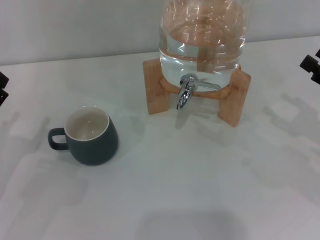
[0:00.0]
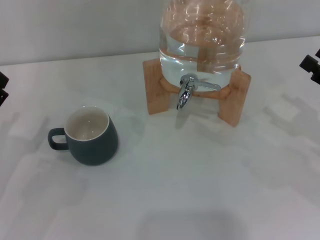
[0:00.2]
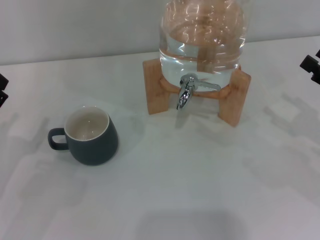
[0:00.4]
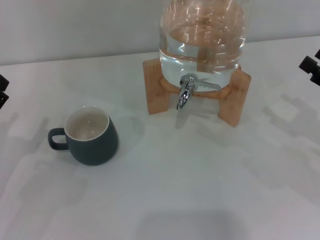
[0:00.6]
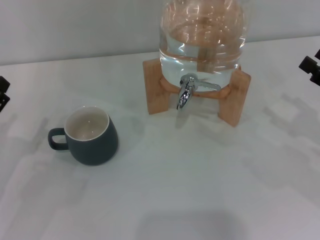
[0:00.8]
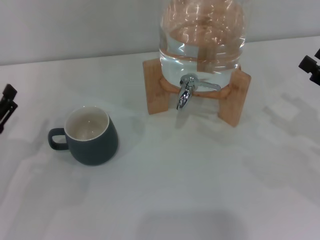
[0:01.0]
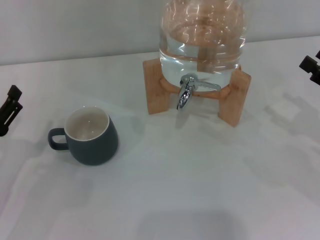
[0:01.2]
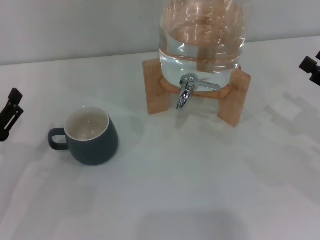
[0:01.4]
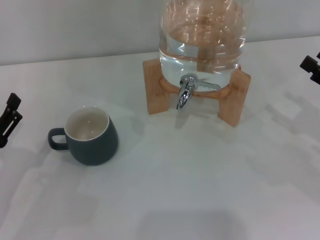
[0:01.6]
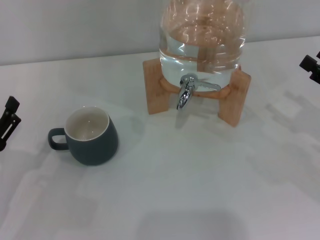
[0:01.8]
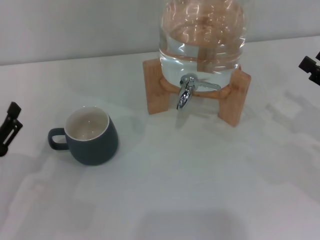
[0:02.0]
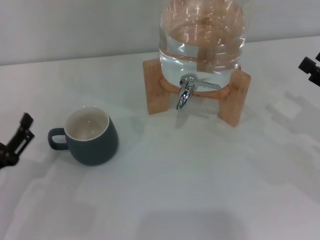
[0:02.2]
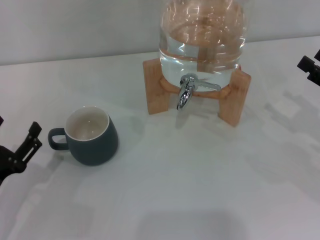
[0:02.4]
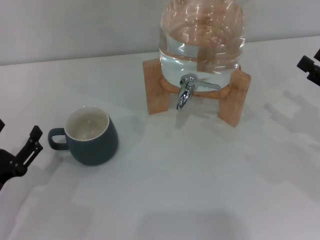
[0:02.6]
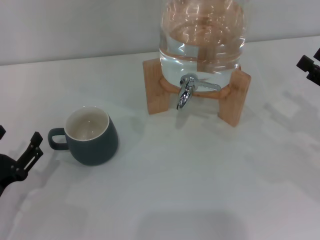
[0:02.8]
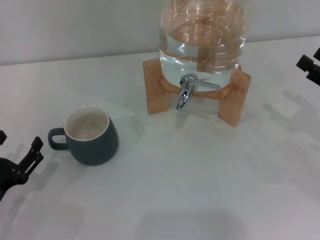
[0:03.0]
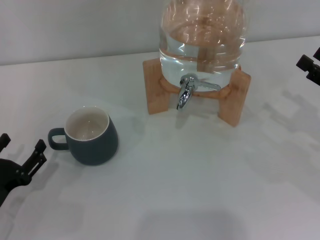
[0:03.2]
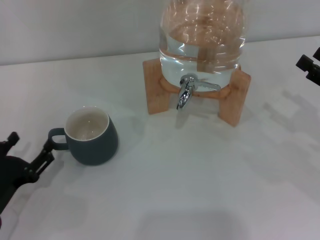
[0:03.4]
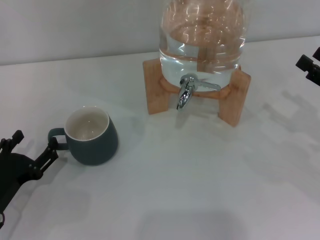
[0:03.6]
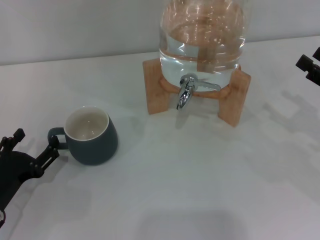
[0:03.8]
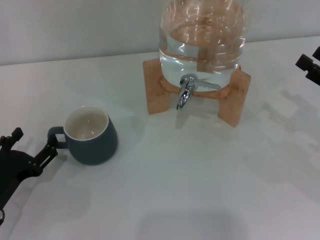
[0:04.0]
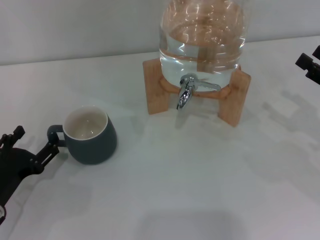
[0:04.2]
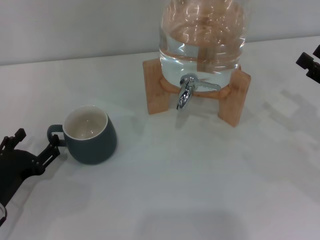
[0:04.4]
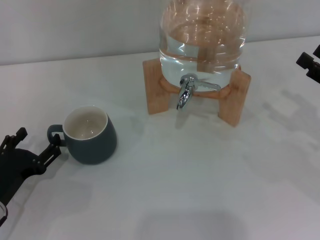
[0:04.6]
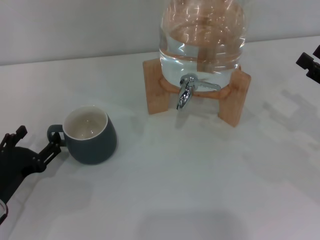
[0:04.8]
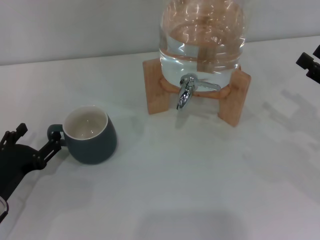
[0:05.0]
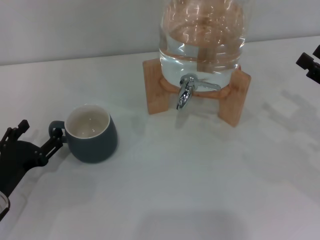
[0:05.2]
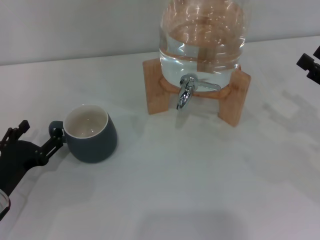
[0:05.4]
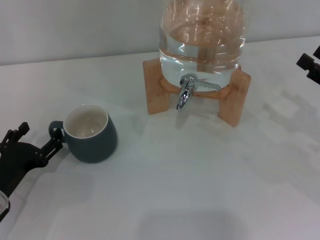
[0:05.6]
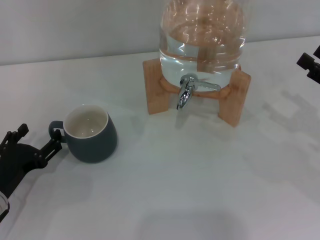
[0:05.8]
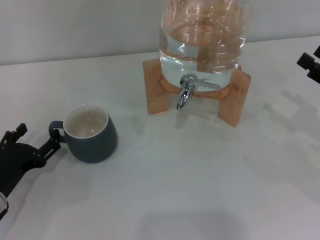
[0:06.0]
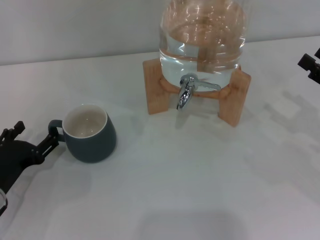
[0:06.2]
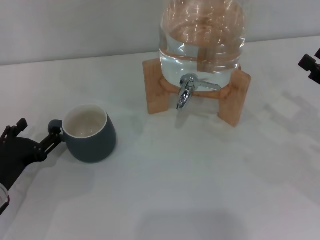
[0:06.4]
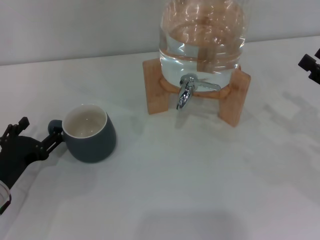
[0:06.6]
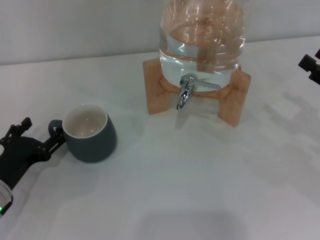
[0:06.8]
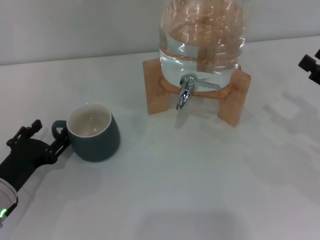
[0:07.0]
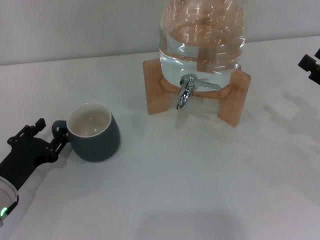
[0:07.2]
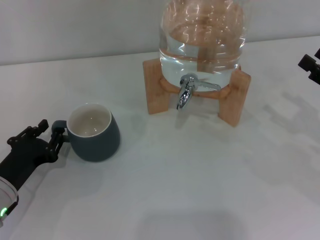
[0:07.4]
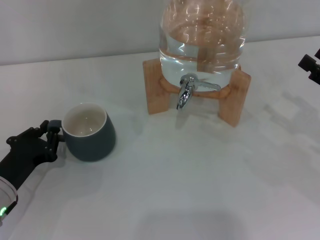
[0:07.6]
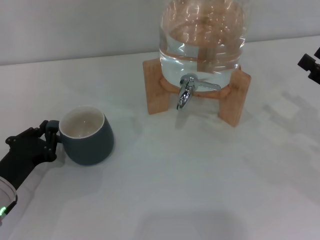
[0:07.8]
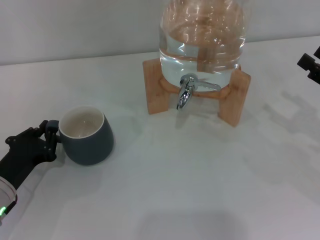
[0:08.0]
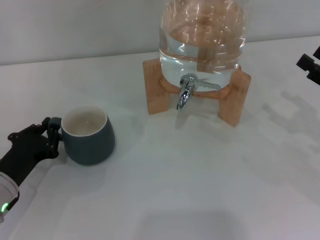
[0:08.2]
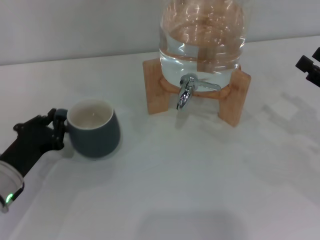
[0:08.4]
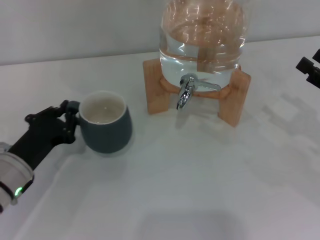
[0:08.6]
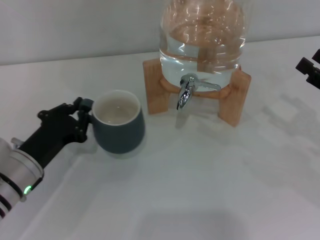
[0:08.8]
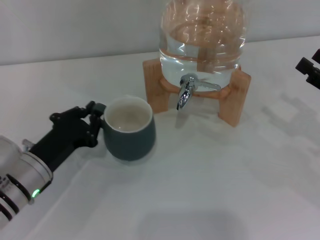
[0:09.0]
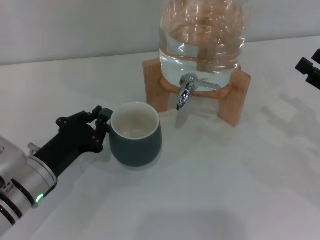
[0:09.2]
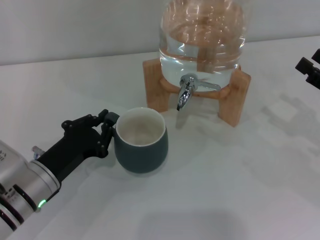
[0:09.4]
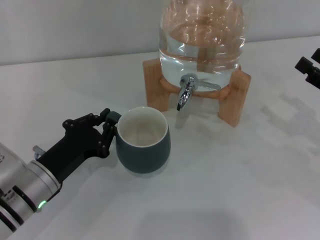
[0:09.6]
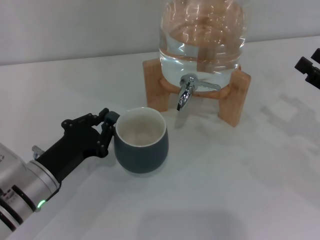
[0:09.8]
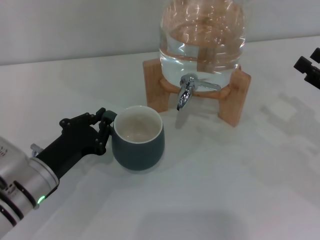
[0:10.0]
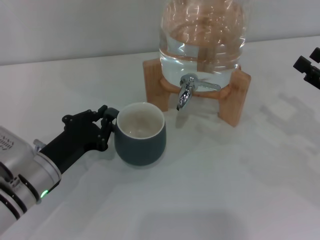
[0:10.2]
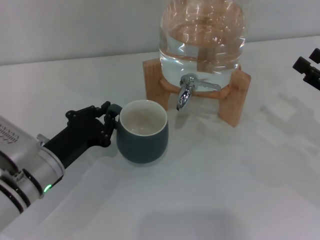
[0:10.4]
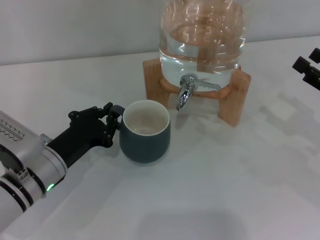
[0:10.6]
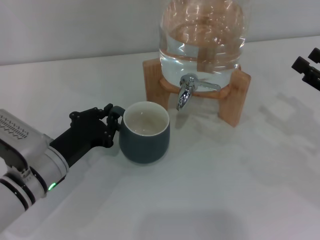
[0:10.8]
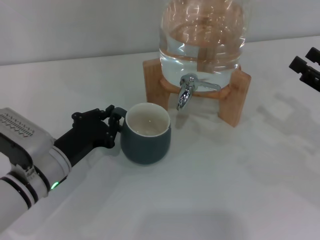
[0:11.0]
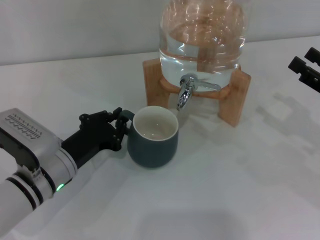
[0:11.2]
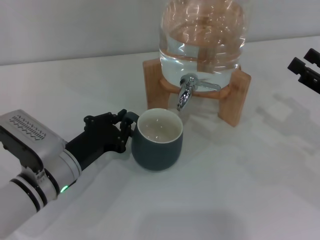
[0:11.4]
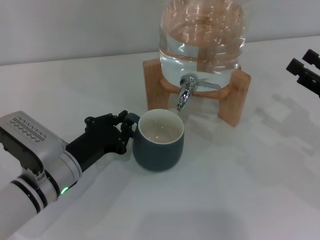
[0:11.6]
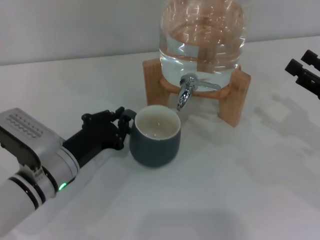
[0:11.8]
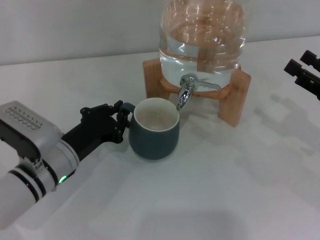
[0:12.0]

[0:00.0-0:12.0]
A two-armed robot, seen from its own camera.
Task of the whole recording: the left gripper pick up the black cup and place it horizontally under the faucet, the right gripper turn on the faucet to fill the cup, and then turn off the faucet.
0:00.0 to 0:01.6: There are only small adjustments of the grippers.
0:01.6 to 0:03.0: The grippers stay close to where they were, moving slightly.
0:03.0 to 0:06.0: There are only small adjustments of the grippers.
0:06.0 to 0:07.6: The left gripper closes.
0:07.6 to 0:09.0: The left gripper shifts approximately 5 cm to the right.
0:09.0 to 0:12.0: The grippers move only a little.

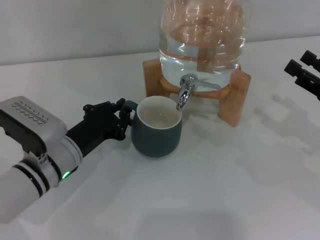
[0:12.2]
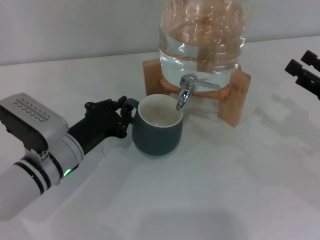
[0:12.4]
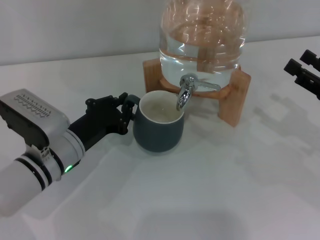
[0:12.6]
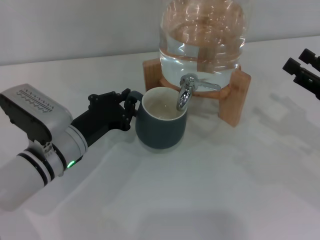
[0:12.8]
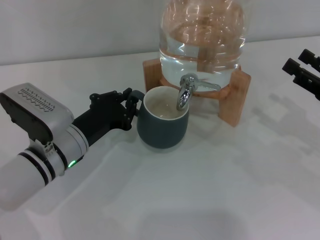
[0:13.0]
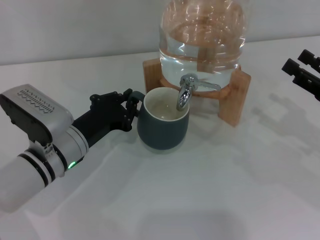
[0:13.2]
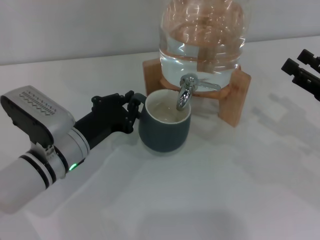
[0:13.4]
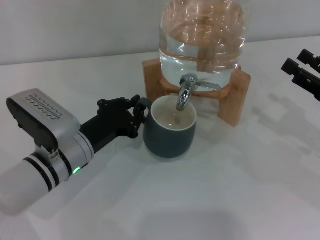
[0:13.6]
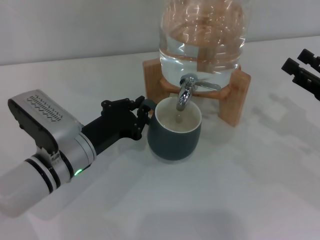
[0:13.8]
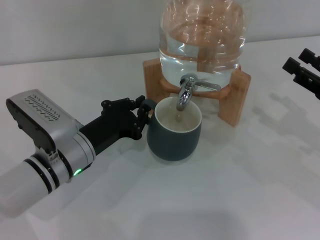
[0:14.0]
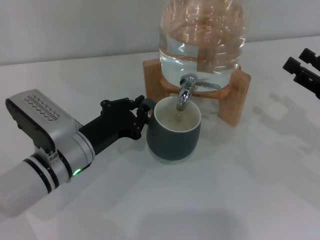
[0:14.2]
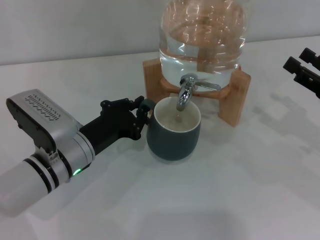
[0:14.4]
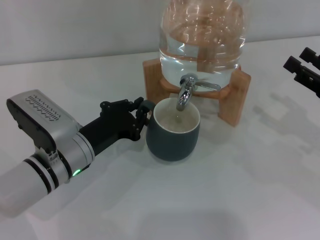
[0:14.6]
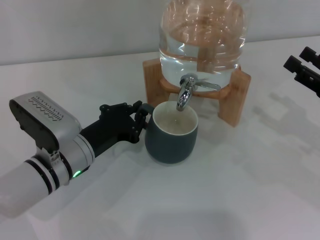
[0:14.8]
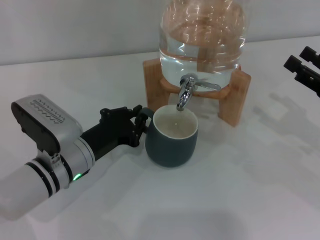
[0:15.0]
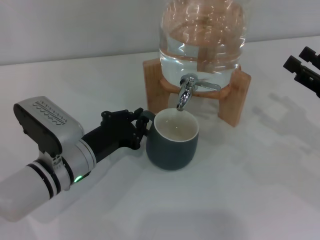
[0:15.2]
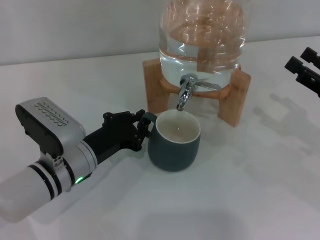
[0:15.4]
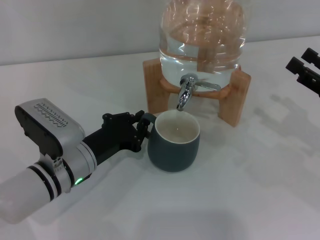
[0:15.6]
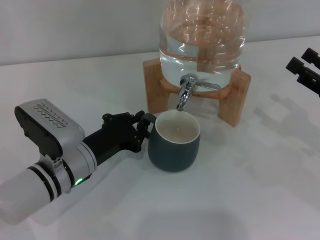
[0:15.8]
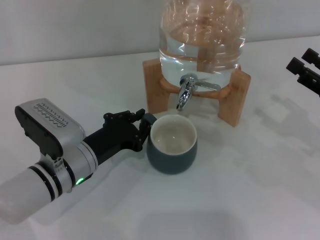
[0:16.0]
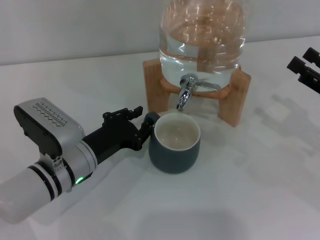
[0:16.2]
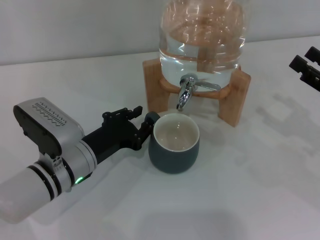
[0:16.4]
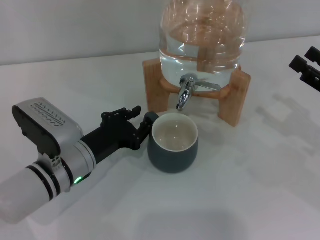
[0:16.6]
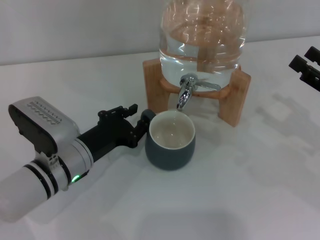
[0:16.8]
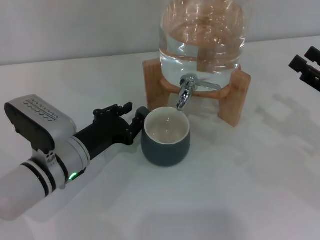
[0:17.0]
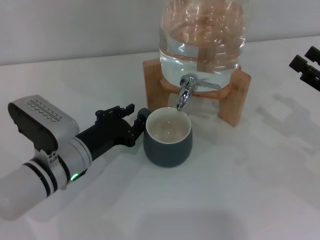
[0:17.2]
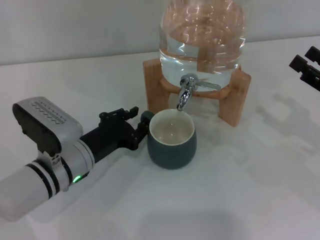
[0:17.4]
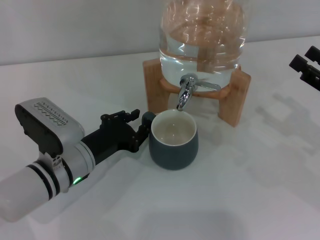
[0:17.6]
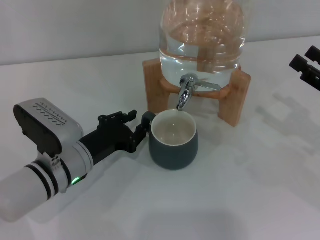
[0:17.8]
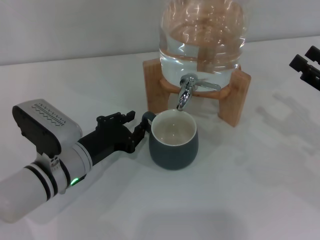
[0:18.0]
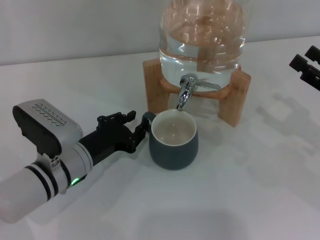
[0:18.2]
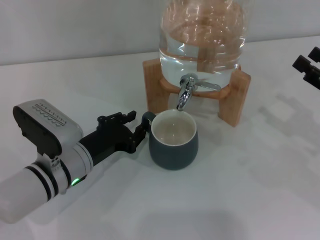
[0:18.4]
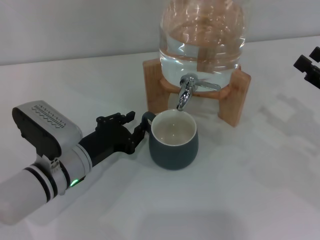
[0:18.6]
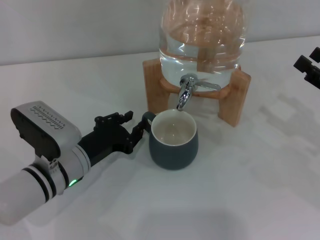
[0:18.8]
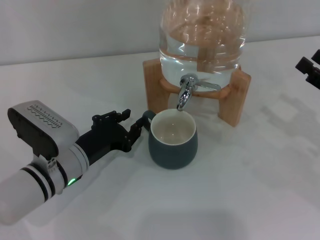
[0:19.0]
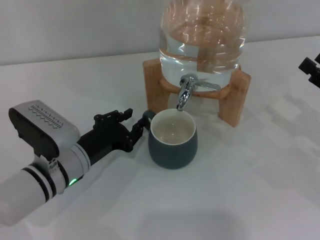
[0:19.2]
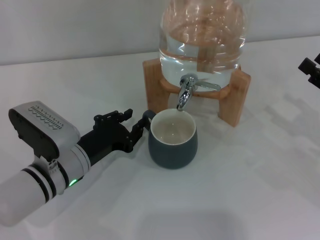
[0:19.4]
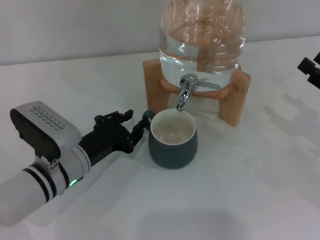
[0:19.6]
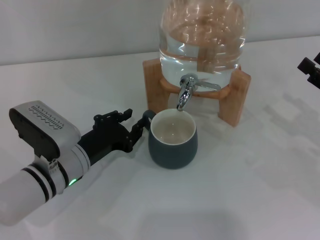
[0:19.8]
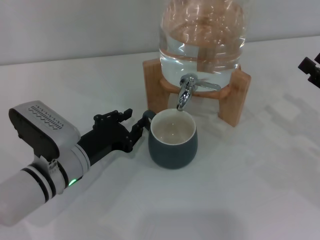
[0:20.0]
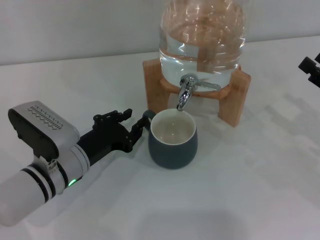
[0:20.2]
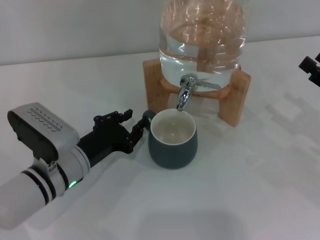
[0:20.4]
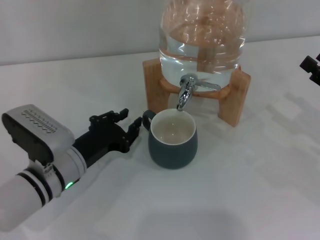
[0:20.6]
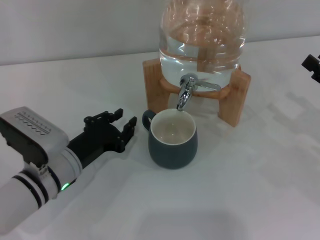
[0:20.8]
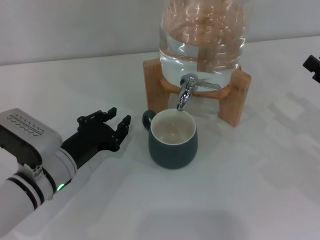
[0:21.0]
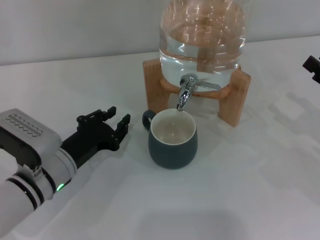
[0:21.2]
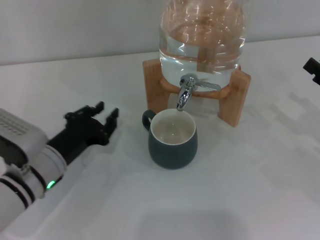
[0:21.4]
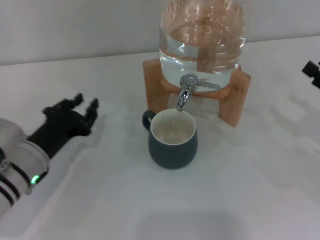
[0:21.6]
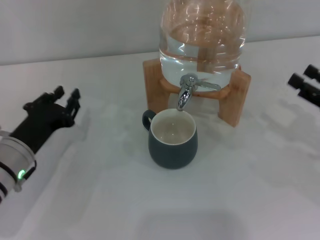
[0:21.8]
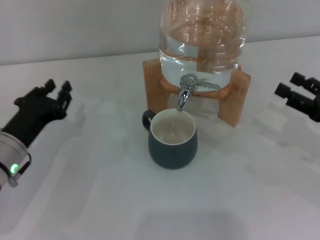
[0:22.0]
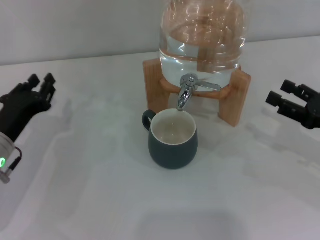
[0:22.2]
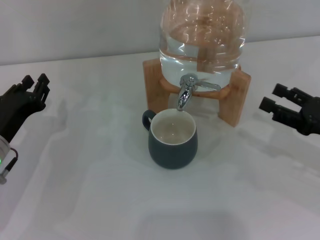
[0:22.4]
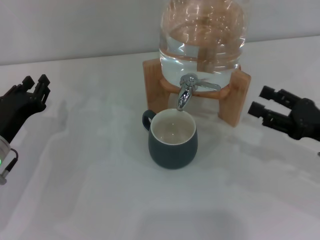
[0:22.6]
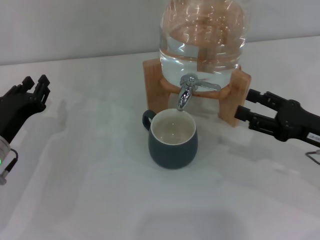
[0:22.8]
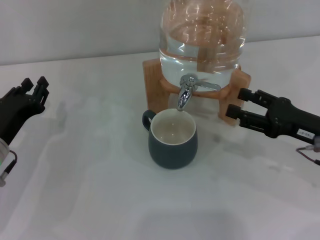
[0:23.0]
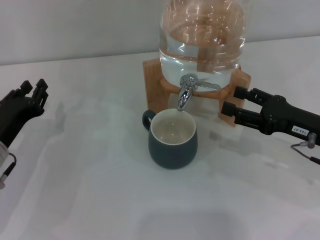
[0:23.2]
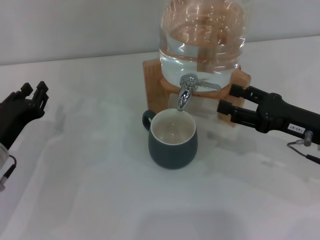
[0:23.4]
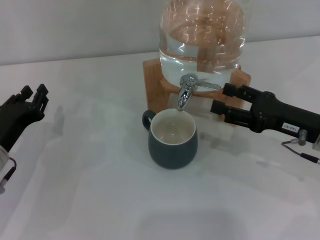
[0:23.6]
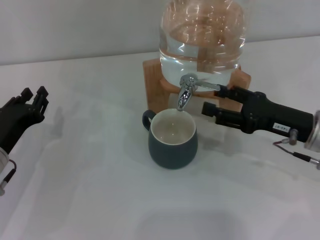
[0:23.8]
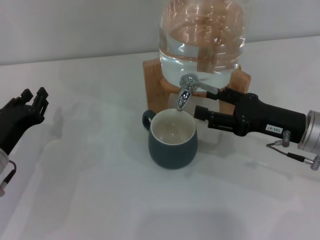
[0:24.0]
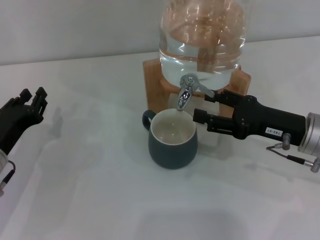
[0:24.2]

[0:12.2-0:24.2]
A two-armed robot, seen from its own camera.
Task of the whole recording: the left gripper pick up the black cup and place it horizontally under the faucet, the right gripper turn on the faucet to fill the cup, and then turn off the faucet.
Step, 0:12.2 to 0:18.6: Move the cup beneath the water dispenser nozzle with the left gripper.
0:12.2 to 0:13.8: There are only small adjustments of the grippers.
0:13.8 to 0:15.2: The two grippers keep their place.
0:15.2 to 0:18.2: Neither gripper changes place.
0:18.2 to 0:19.8: The two grippers keep their place.
0:19.8 to 0:21.2: The grippers make only small movements.
0:21.2 to 0:22.6: The left gripper goes about 10 cm to the left.
0:22.6 to 0:24.2: The right gripper goes roughly 5 cm to the left.
